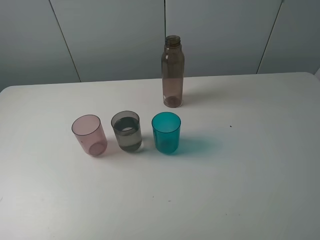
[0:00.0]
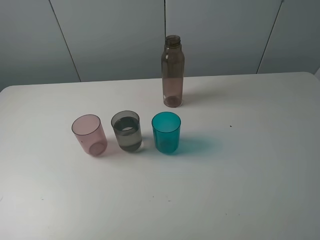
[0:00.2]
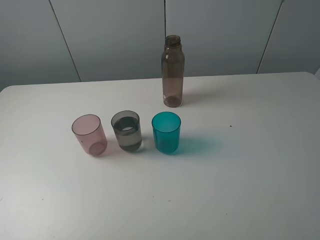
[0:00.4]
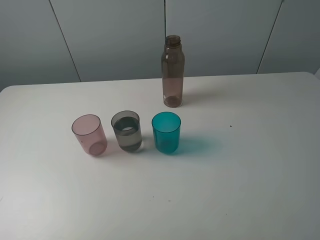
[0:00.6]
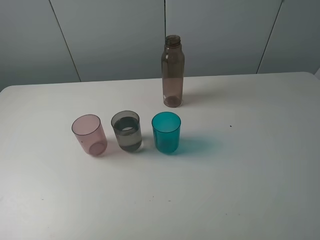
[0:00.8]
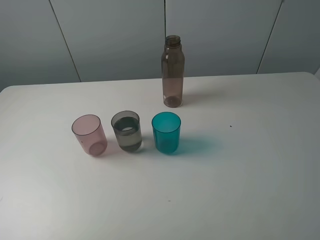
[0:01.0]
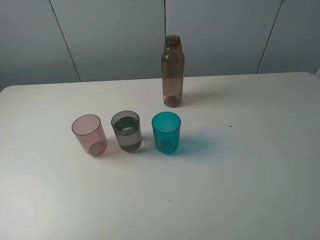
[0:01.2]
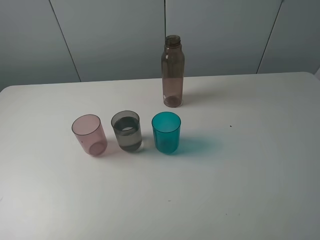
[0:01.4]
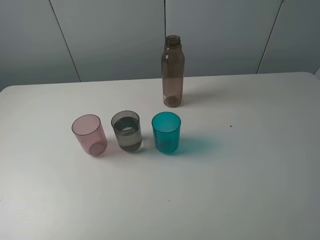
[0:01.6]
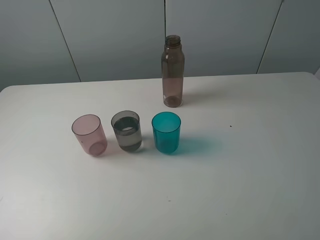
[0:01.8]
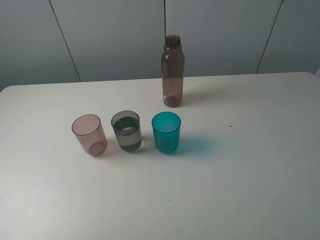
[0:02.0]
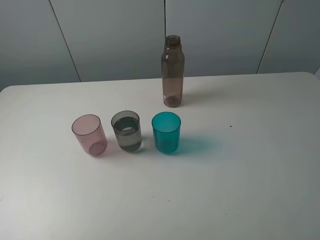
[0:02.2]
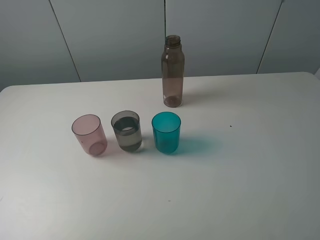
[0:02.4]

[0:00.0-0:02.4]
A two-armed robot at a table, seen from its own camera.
Task of the whole recording: pick up the bottle filled with water and pour water into the middle cup of the three cups.
0:01.2 to 0:02.4: The two grippers keep their place.
